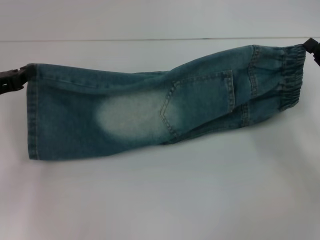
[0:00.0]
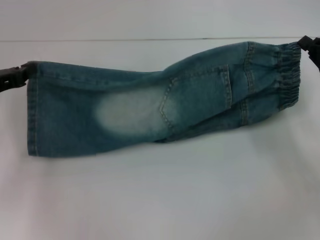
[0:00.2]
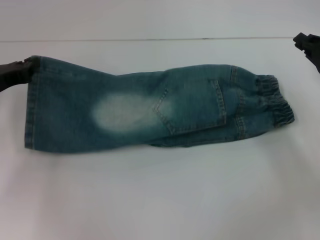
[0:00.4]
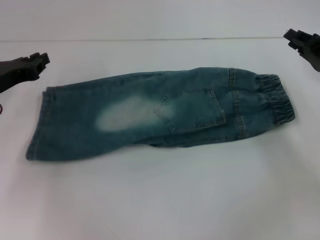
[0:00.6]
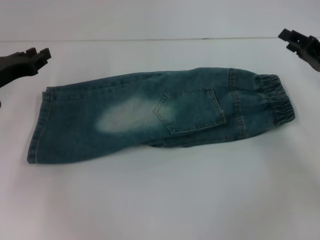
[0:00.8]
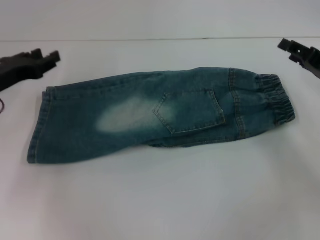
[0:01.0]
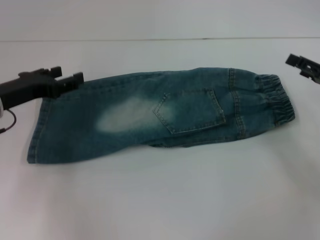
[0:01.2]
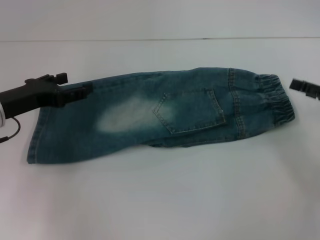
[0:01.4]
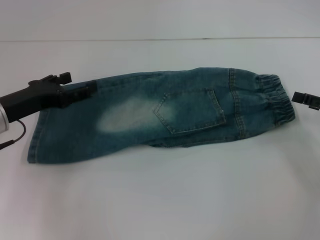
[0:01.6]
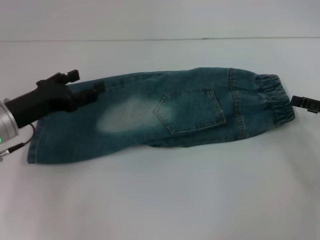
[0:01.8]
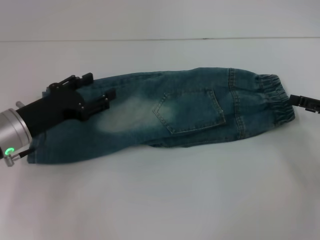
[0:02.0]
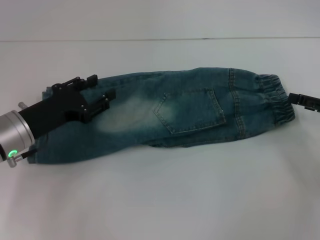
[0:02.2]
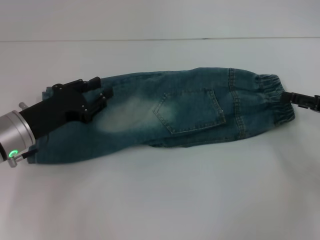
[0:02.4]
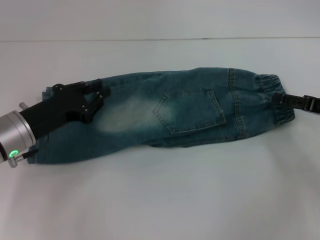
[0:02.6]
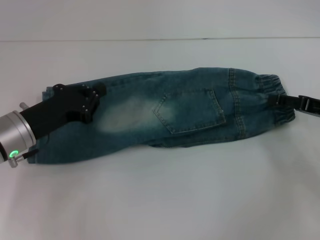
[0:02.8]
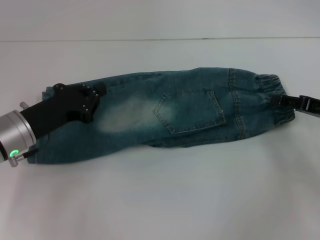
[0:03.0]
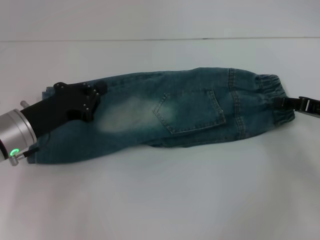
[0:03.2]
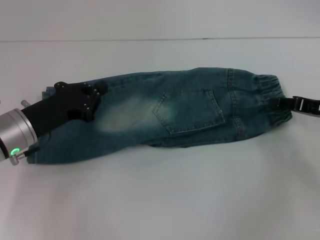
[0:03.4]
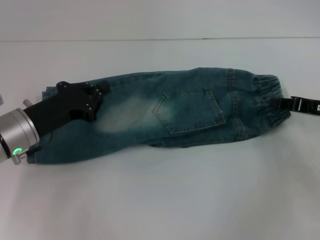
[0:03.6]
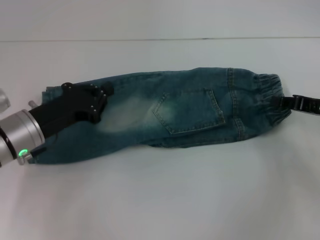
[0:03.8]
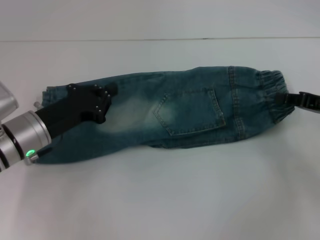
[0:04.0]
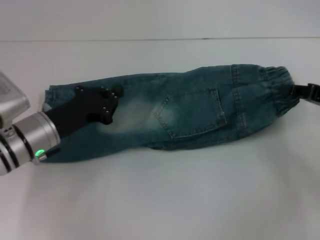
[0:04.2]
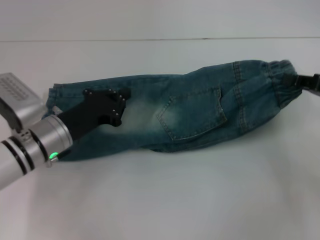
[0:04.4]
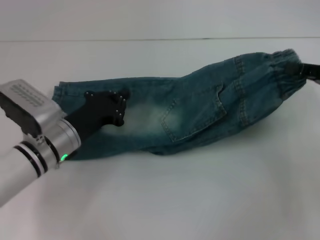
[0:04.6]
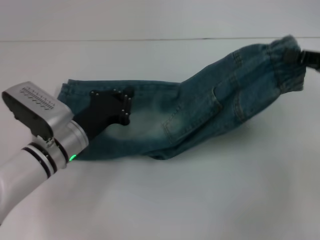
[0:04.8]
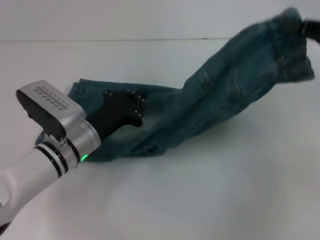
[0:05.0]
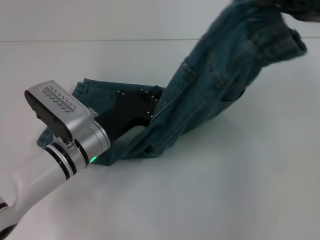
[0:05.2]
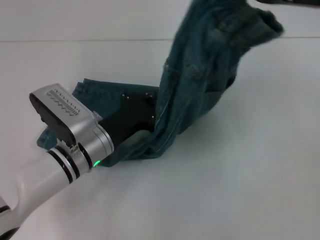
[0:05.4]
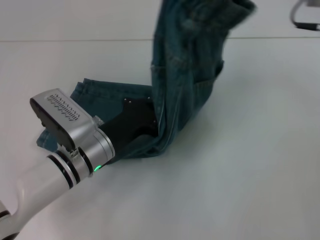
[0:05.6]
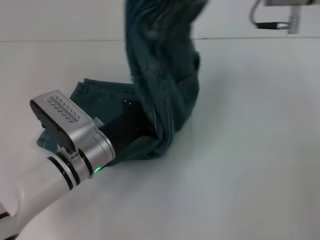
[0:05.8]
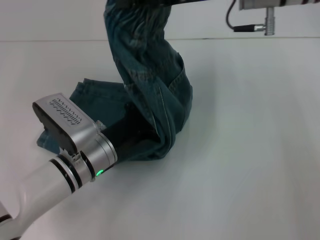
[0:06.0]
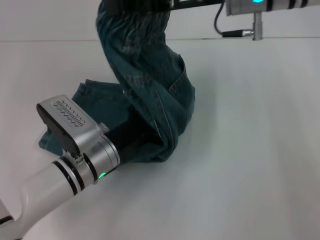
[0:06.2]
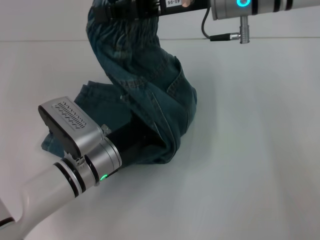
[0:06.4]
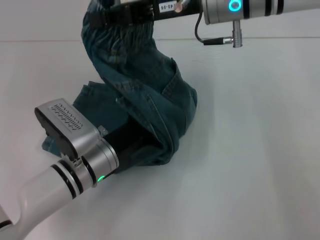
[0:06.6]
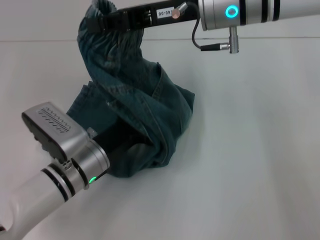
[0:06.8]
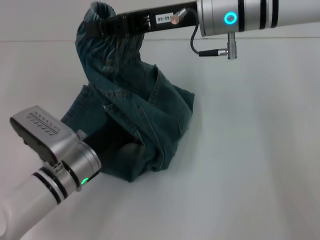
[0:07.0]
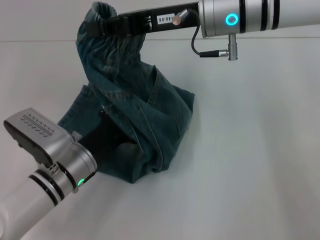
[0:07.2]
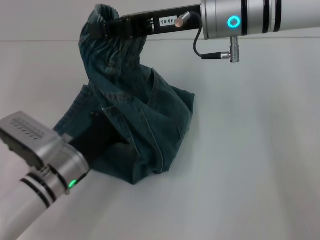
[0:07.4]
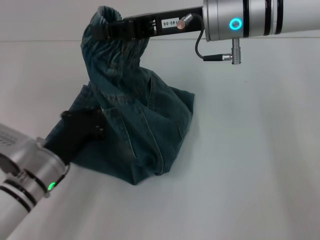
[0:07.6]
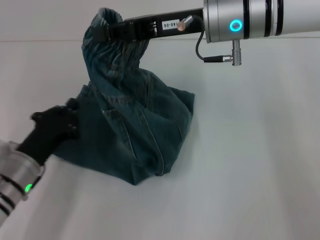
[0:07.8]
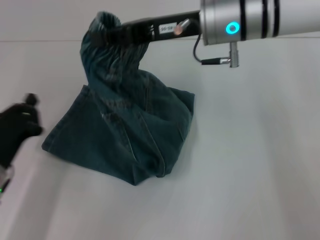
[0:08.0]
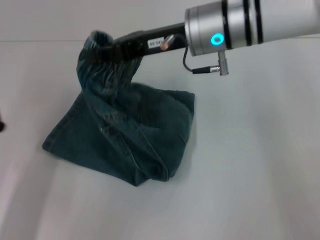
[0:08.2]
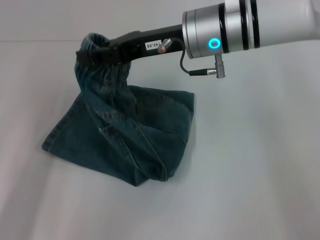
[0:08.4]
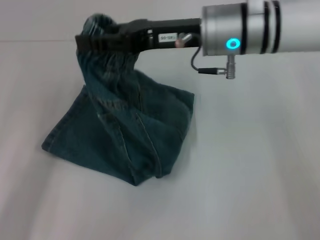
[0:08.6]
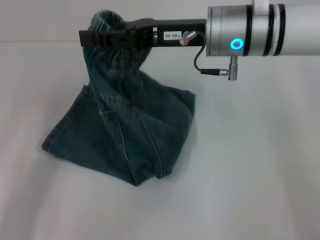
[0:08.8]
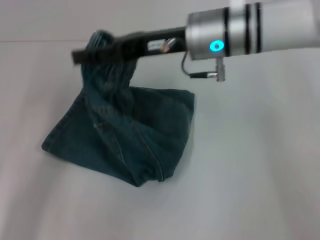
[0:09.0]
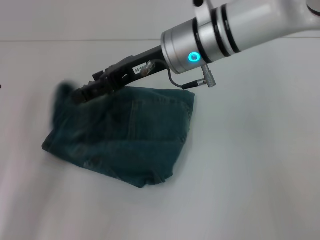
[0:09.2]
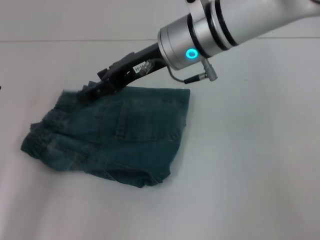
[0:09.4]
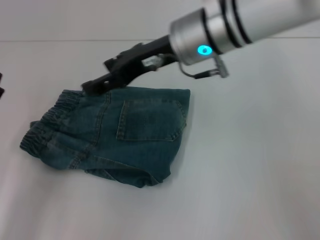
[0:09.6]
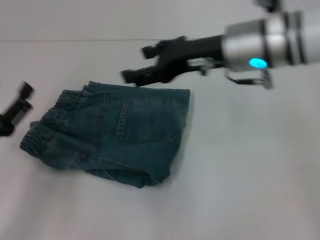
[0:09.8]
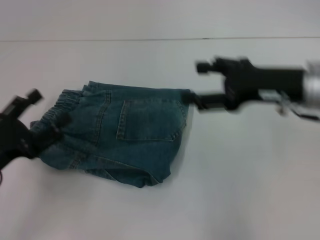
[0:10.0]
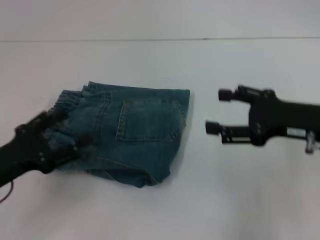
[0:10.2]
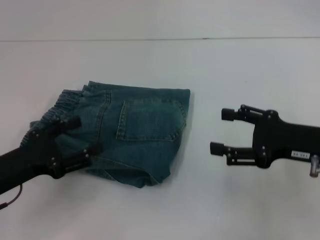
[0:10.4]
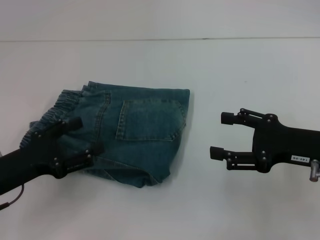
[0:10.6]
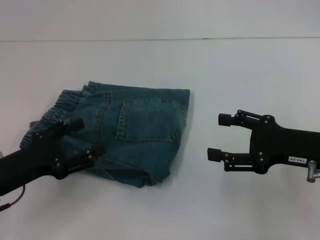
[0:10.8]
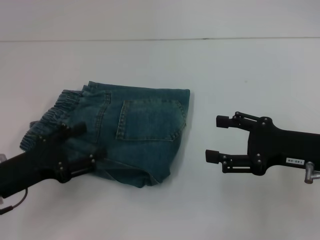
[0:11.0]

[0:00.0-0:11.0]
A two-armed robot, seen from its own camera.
Step, 0:00.6 to 0:03.8: Grab the waistband with your right hand.
Step, 0:04.0 to 0:06.4: Press the middle of the pants with your left hand.
Step, 0:06.6 to 0:09.4: Fold to the left with your right hand.
0:00.0 to 0:01.6: The left gripper heads to the right, covering some 5 cm, and opens. Meanwhile the right gripper opens its fingers.
0:01.6 to 0:03.2: The left gripper closes up. Meanwhile the right gripper closes its fingers.
0:03.2 to 0:04.8: The right gripper heads upward, covering approximately 10 cm, and closes its fingers, while the left gripper heads to the right, covering approximately 5 cm.
0:04.8 to 0:06.2: The right gripper travels to the left and upward by about 25 cm. The left gripper moves approximately 5 cm.
0:06.2 to 0:07.8: The left gripper travels to the left by about 10 cm.
0:07.8 to 0:09.4: Both grippers travel together to the left, roughly 5 cm. The left gripper opens its fingers; the right gripper opens up.
0:09.4 to 0:11.0: The right gripper heads to the right, backward and downward, covering about 25 cm.
